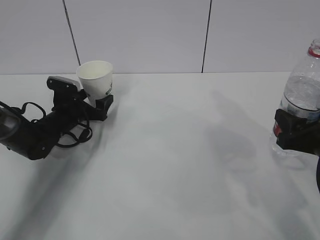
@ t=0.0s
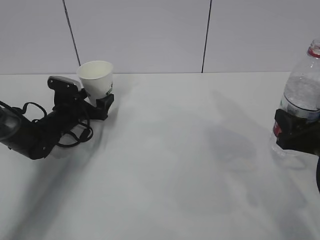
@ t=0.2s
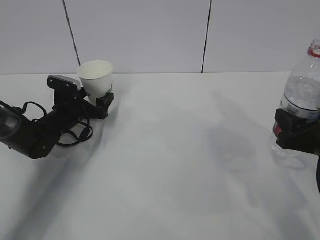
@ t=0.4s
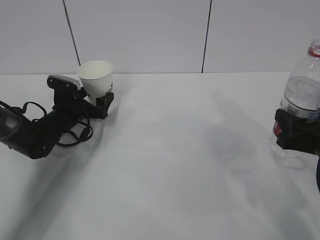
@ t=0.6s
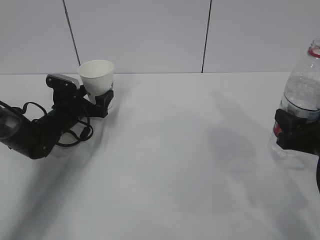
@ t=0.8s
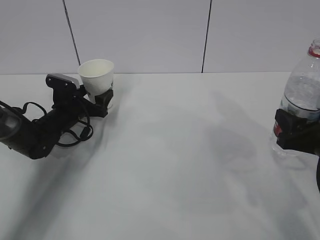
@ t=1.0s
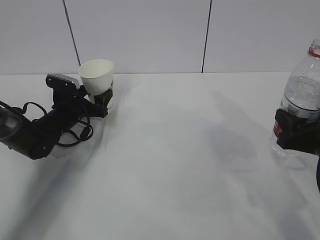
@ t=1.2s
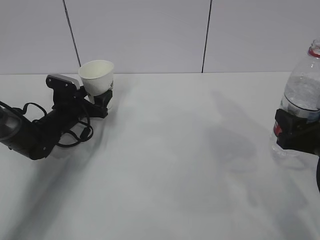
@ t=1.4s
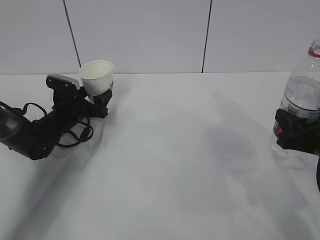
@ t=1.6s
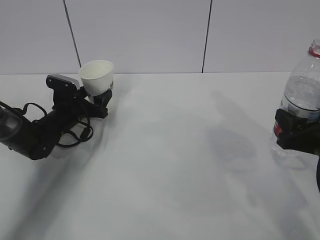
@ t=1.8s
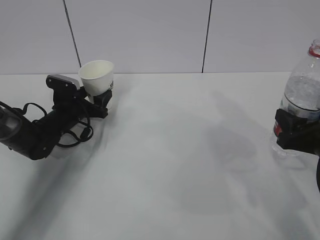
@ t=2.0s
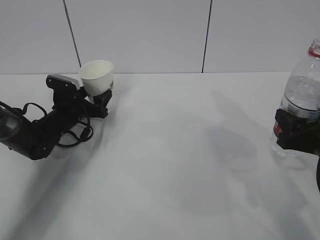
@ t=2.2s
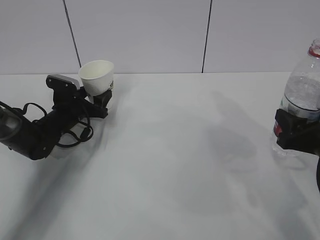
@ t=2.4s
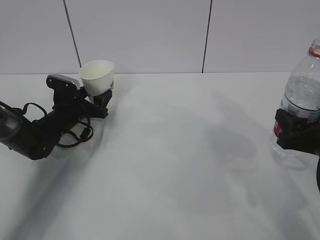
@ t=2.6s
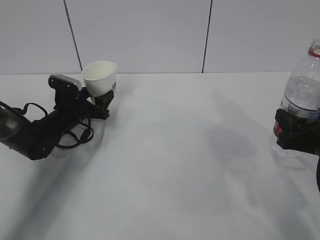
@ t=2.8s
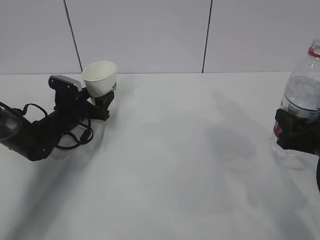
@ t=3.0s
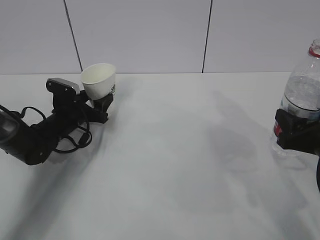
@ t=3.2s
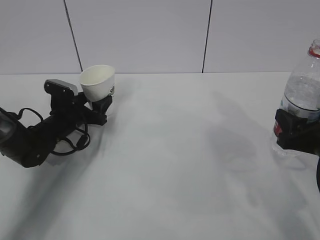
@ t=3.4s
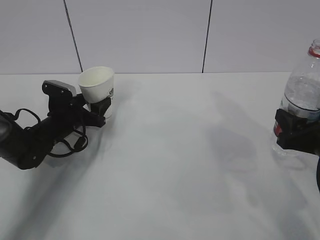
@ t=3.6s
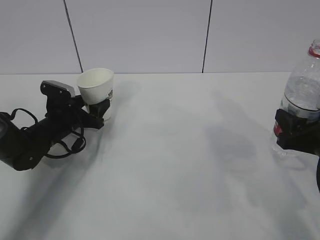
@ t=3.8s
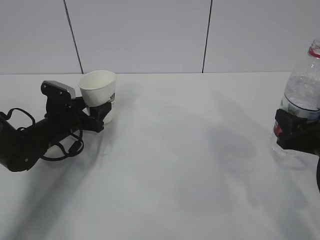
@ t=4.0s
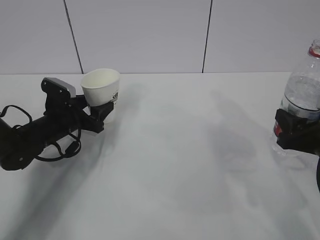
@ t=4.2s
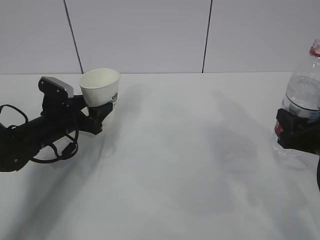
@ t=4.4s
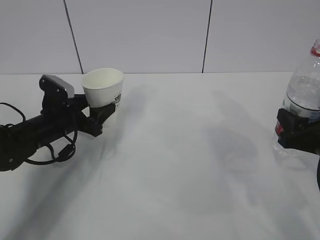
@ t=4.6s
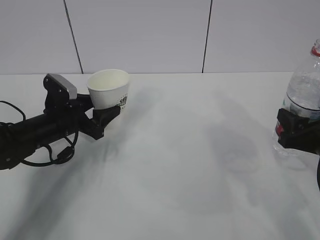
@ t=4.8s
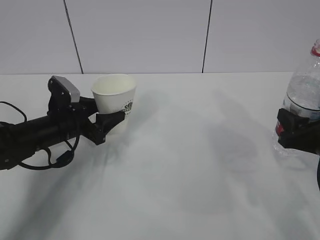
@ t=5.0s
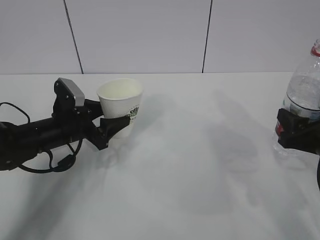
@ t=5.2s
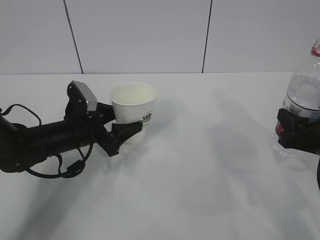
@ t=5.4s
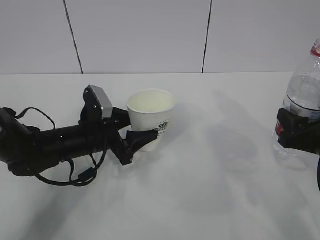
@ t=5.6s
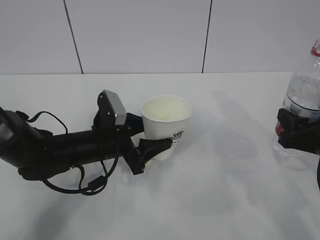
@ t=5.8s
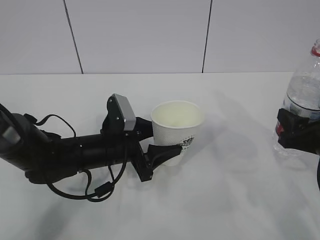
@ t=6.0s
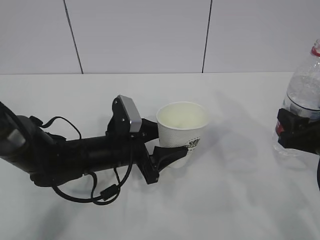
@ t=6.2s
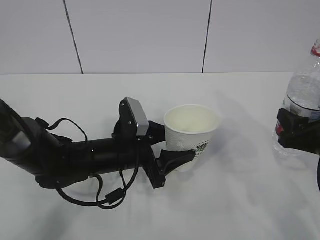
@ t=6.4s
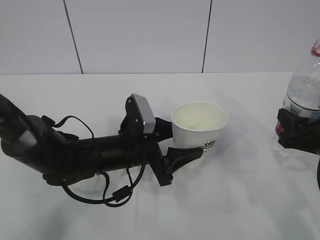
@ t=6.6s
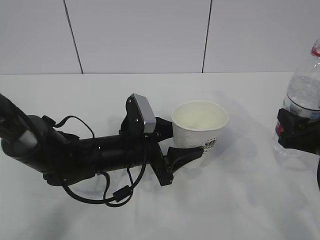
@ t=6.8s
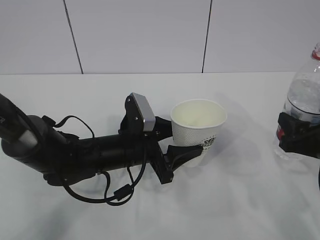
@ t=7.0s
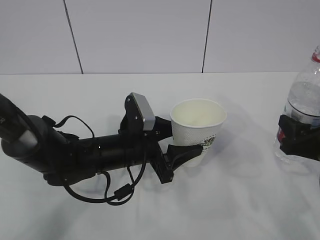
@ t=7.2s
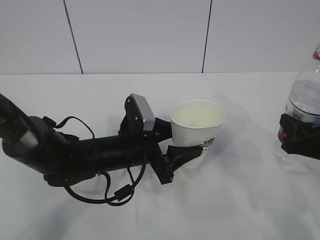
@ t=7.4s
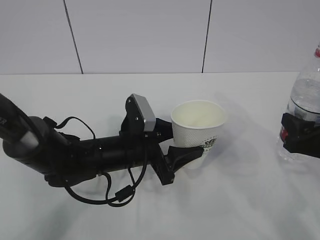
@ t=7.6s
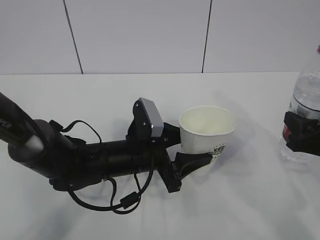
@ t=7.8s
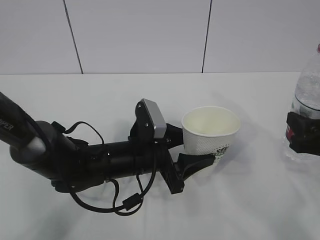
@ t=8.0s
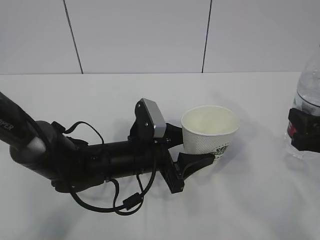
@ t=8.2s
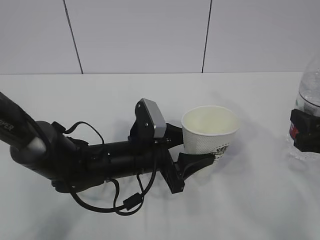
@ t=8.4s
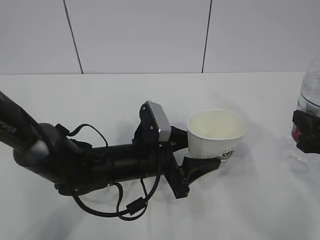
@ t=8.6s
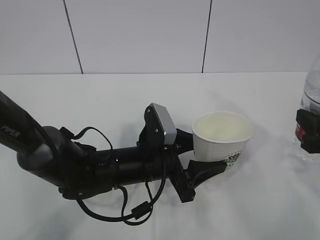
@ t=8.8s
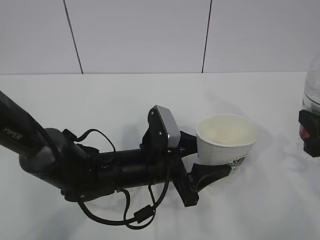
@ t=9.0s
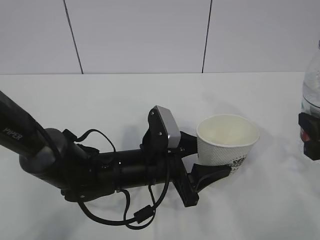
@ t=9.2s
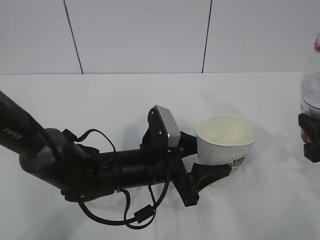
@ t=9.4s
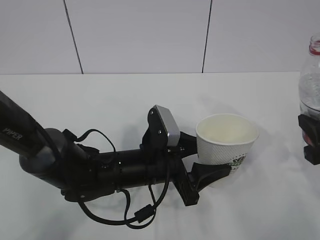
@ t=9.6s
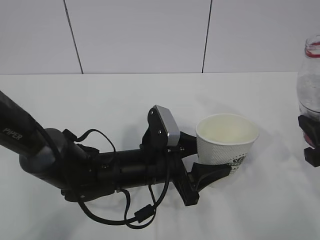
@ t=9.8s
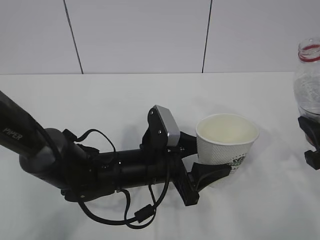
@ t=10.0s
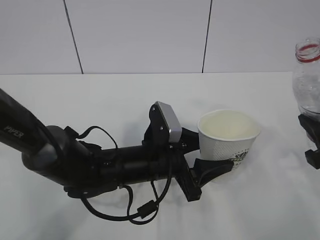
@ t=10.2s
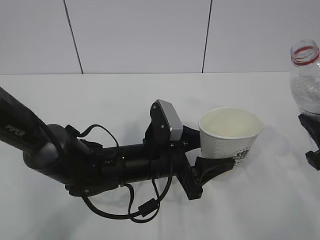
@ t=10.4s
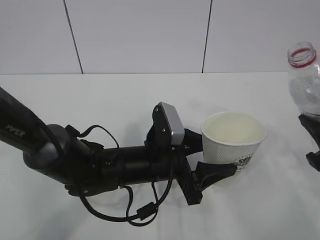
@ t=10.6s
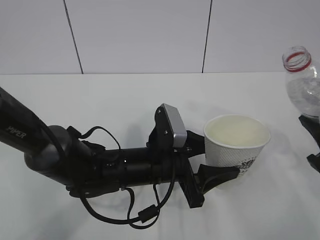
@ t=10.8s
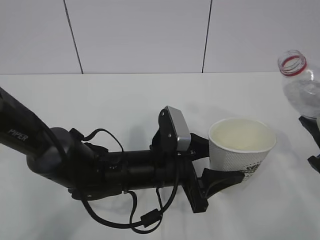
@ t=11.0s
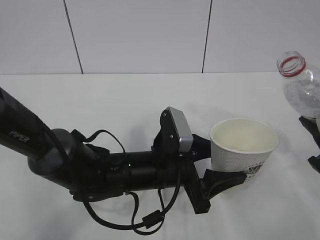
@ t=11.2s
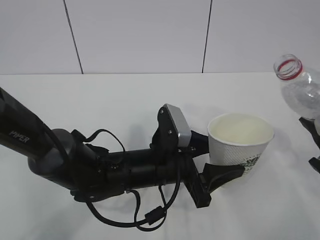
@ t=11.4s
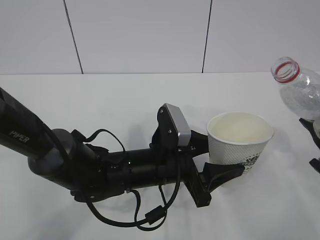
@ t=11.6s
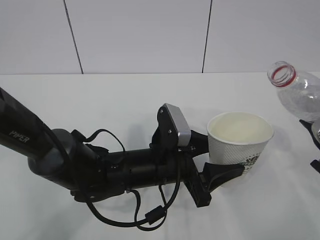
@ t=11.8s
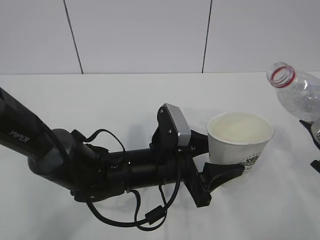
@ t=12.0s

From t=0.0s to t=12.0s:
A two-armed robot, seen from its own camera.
From t=0.0s to t=1.6s: The left gripper closes.
From t=1.6s to t=3.0s: Neither gripper changes place.
From t=3.0s to t=4.4s: The left gripper moves backward, approximately 5 cm.
From t=4.4s to t=6.0s: The left gripper heads to the right and backward, covering some 15 cm.
From t=6.0s to t=7.6s: The grippers move only a little.
From t=7.6s to t=9.0s: The right gripper ends up about 5 cm from where it was.
From t=10.4s to t=12.0s: The grippers make only small movements.

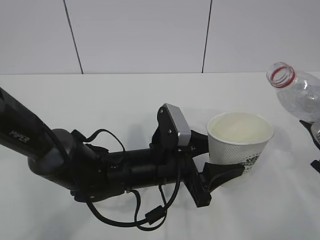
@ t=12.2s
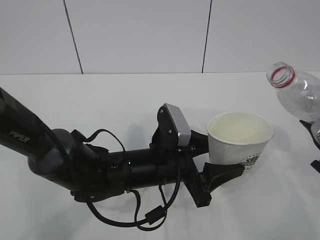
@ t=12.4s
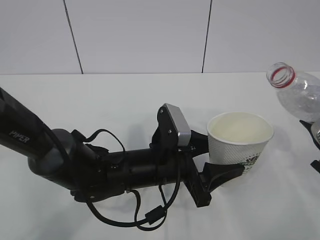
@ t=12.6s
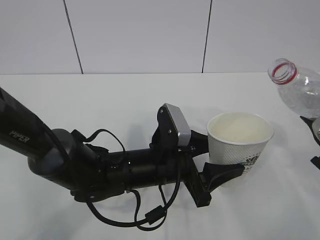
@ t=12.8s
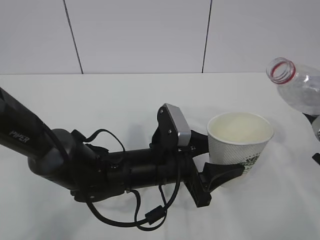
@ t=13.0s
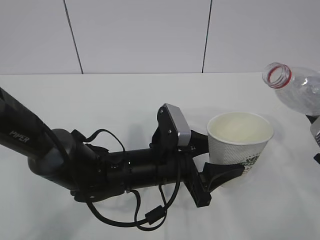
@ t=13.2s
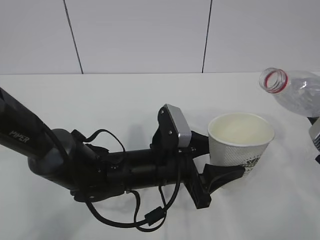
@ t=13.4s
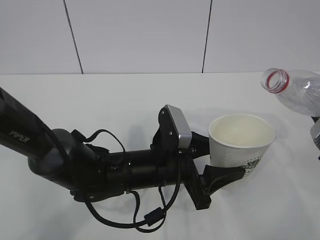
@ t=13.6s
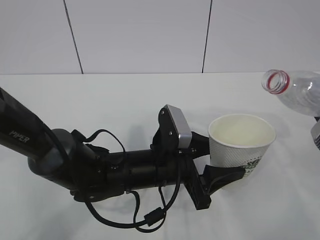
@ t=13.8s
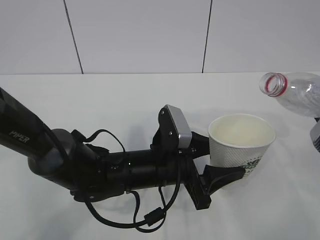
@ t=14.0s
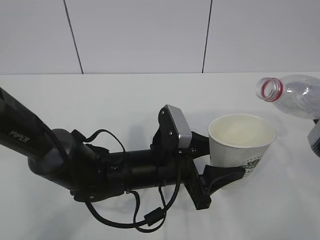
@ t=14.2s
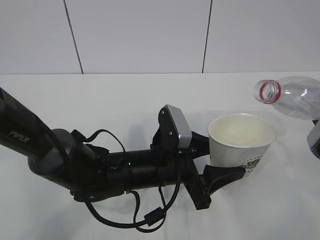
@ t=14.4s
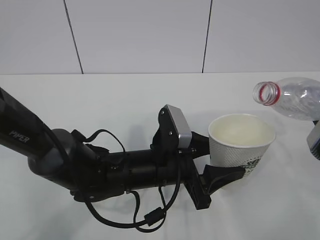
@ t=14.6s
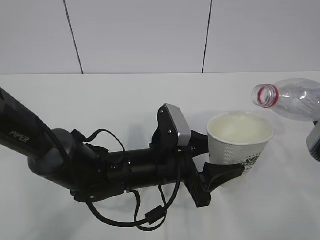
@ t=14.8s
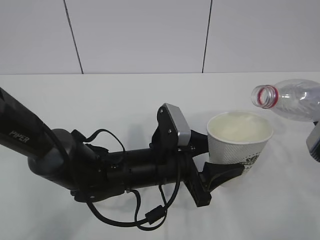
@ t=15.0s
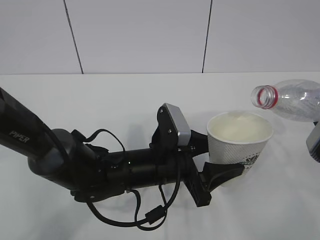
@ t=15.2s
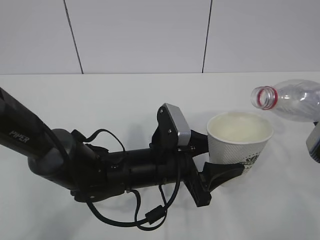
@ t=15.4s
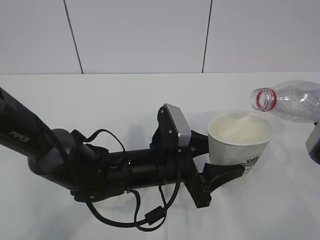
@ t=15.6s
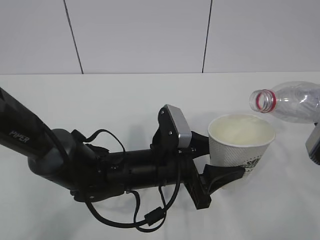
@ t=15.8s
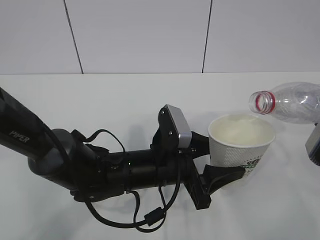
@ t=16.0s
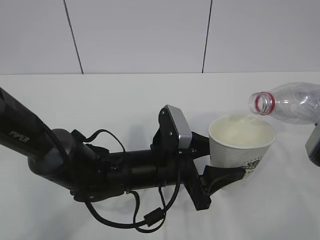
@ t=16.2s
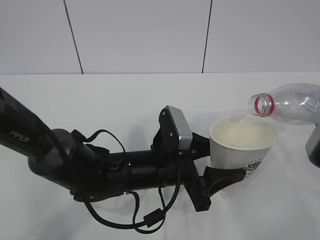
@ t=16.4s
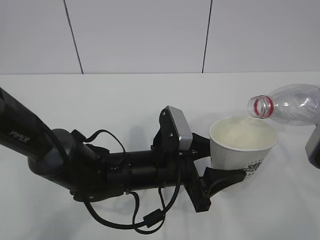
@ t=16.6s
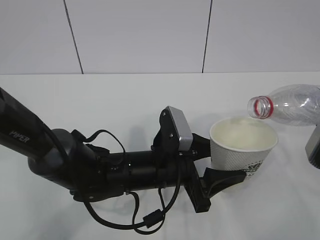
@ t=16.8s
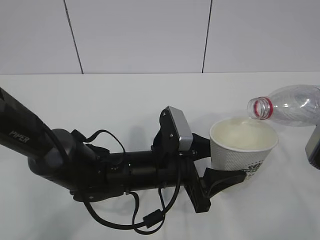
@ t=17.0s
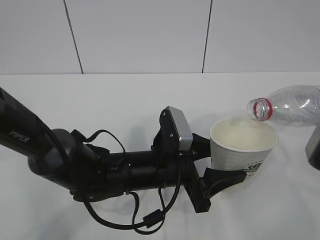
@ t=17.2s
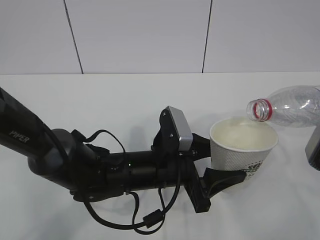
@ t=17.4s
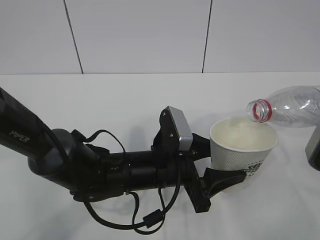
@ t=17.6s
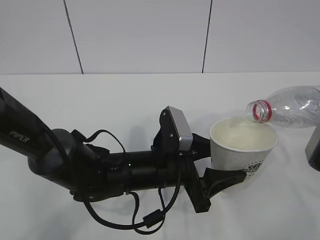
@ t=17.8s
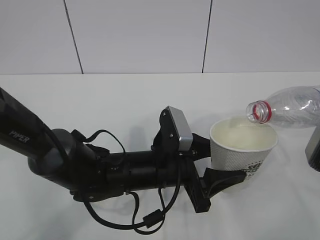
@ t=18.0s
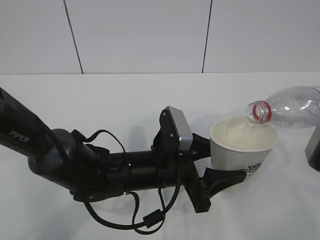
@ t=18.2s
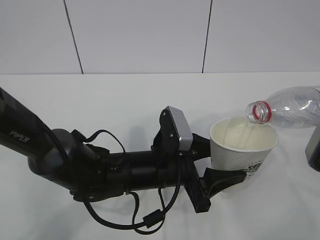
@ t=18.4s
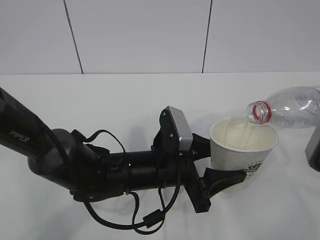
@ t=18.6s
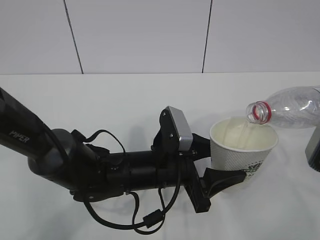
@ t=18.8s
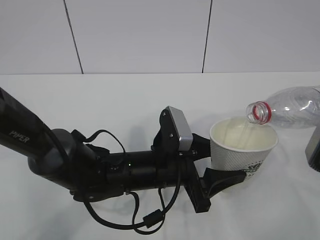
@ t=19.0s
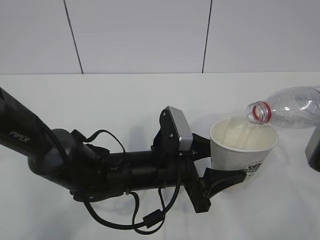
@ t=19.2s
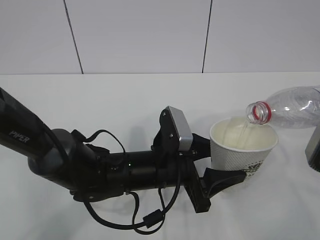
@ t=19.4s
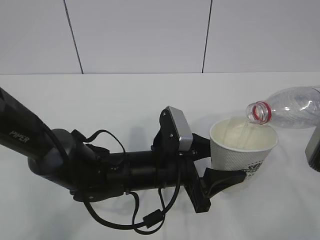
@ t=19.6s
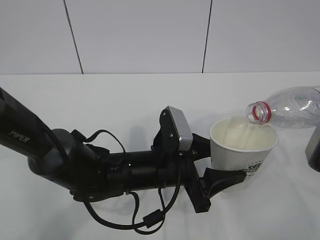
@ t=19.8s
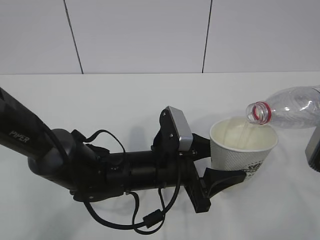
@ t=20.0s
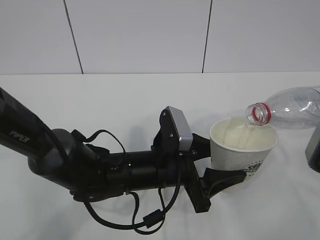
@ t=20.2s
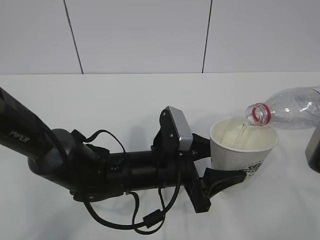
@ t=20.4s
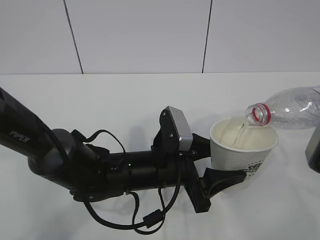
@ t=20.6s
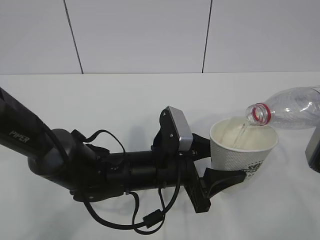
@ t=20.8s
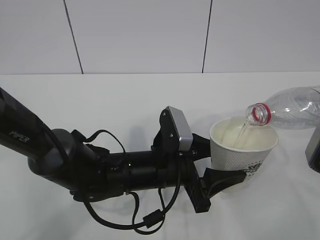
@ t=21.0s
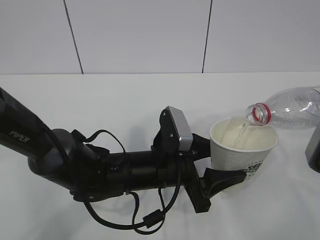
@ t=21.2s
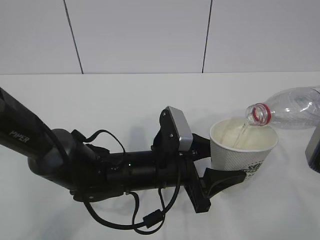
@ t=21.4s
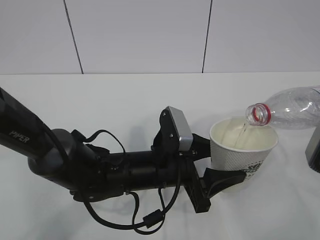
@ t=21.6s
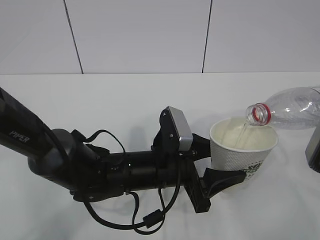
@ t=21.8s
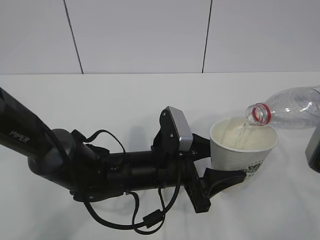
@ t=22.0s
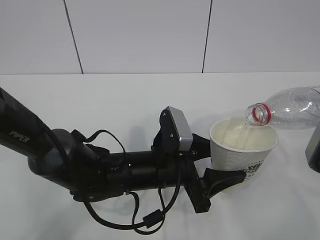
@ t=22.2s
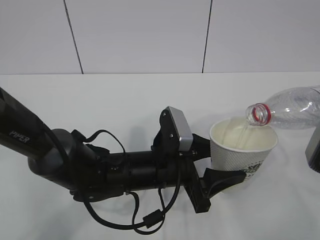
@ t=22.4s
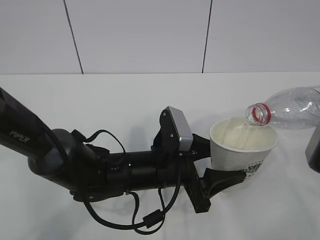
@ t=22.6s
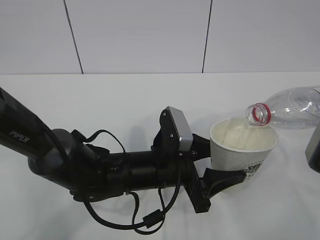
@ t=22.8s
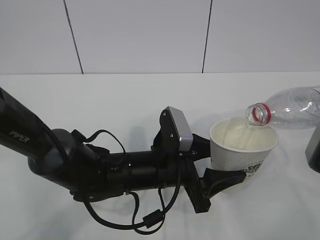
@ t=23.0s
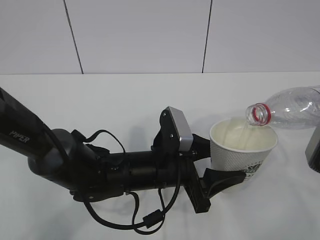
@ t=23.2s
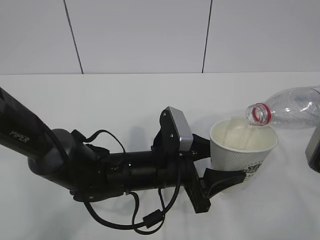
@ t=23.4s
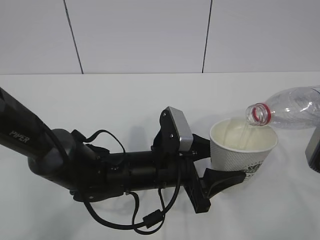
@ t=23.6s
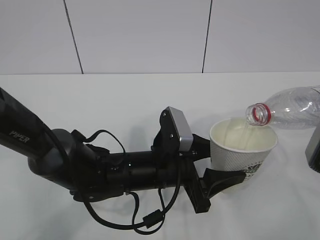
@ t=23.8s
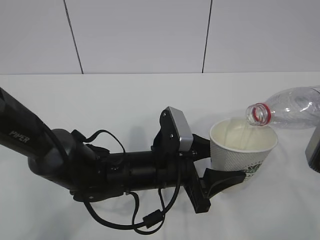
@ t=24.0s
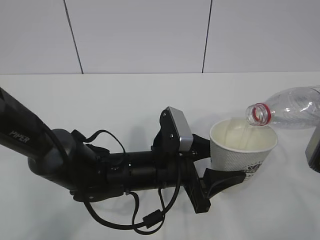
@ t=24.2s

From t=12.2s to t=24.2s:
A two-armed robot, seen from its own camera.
From t=12.2s to t=13.8s: There are only small adjustments of the grippers.
From t=13.8s to t=16.6s: The grippers make only small movements.
From t=16.6s to t=19.8s: Both grippers stay about where they are.
From t=19.8s to t=24.2s: The two grippers keep their place.
